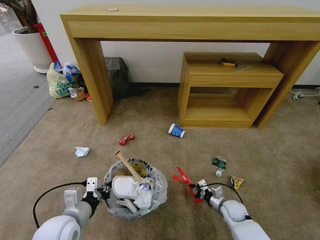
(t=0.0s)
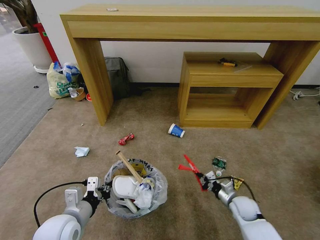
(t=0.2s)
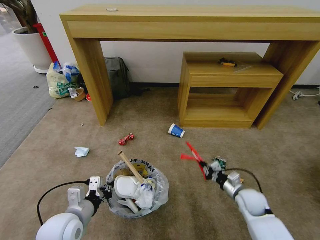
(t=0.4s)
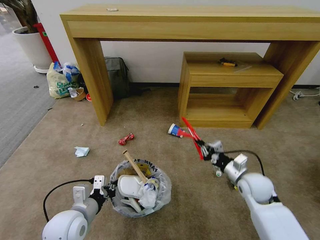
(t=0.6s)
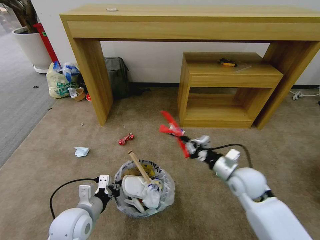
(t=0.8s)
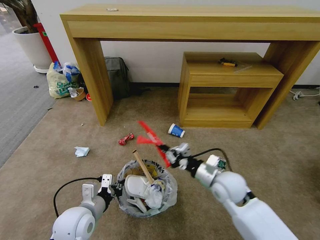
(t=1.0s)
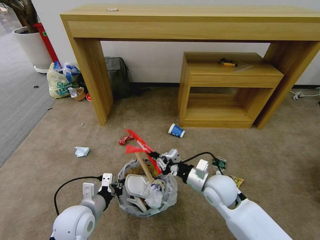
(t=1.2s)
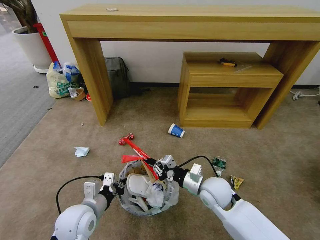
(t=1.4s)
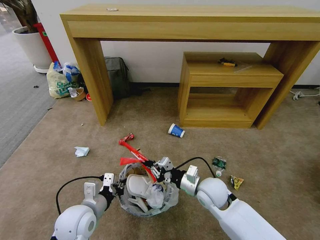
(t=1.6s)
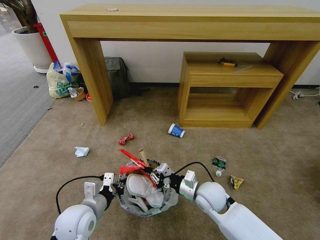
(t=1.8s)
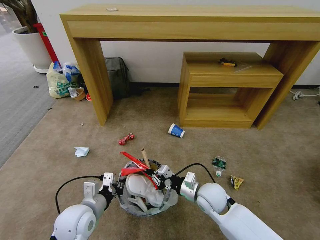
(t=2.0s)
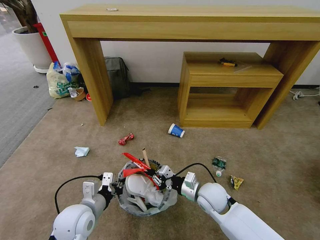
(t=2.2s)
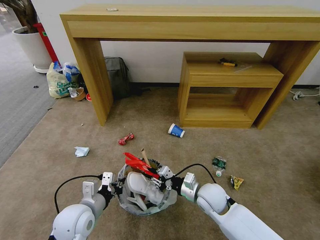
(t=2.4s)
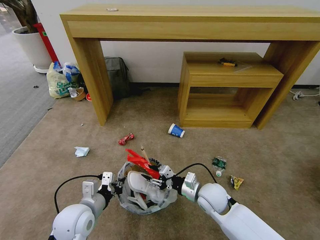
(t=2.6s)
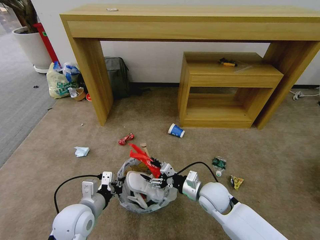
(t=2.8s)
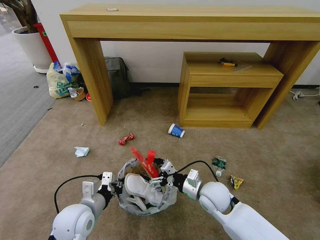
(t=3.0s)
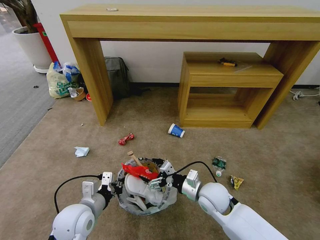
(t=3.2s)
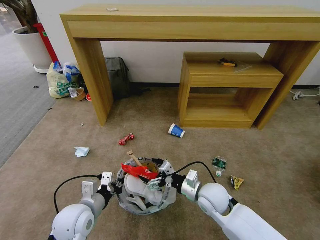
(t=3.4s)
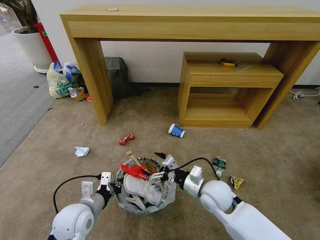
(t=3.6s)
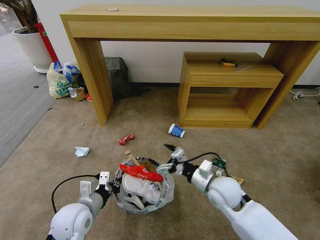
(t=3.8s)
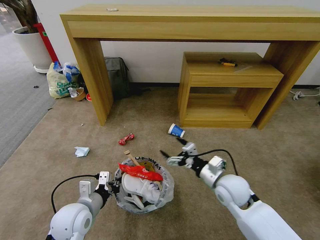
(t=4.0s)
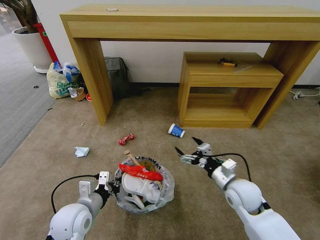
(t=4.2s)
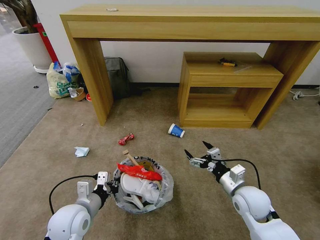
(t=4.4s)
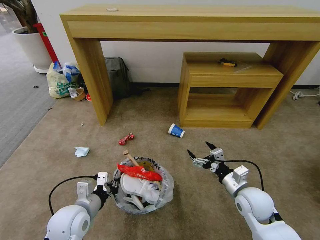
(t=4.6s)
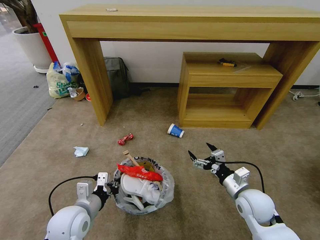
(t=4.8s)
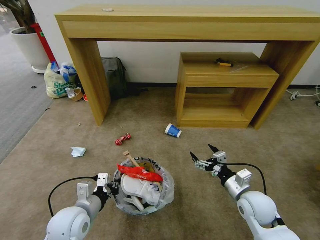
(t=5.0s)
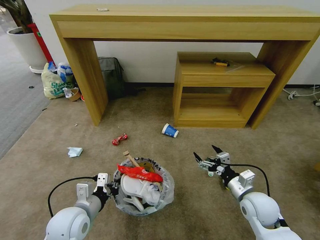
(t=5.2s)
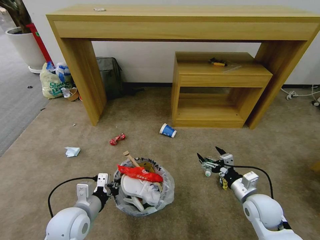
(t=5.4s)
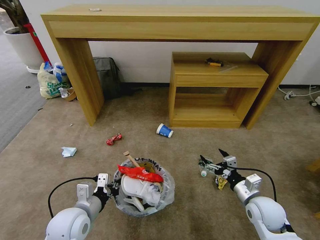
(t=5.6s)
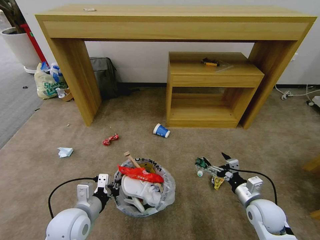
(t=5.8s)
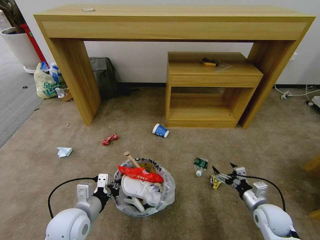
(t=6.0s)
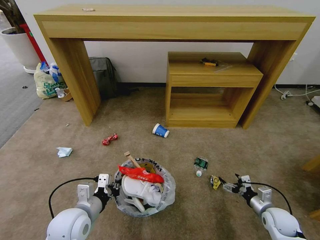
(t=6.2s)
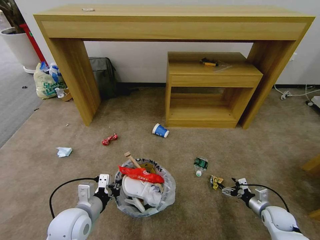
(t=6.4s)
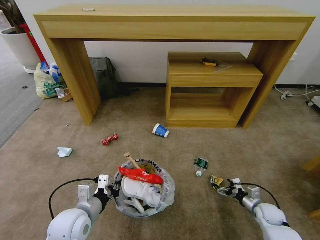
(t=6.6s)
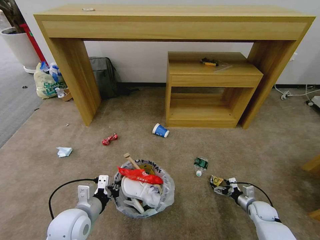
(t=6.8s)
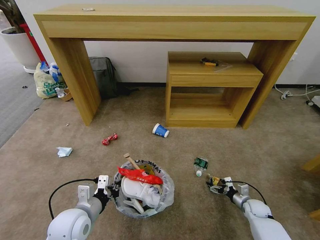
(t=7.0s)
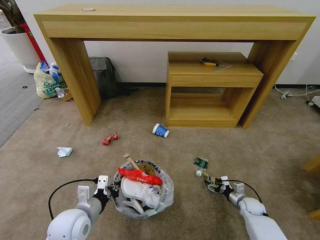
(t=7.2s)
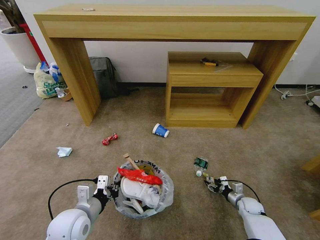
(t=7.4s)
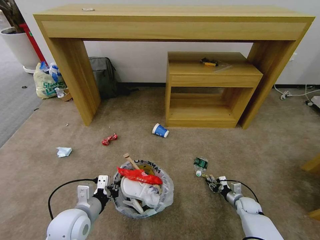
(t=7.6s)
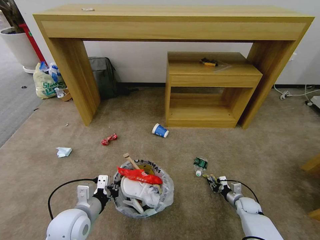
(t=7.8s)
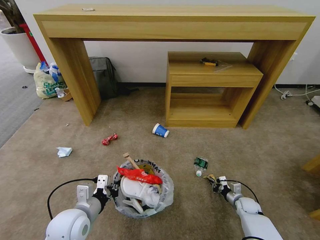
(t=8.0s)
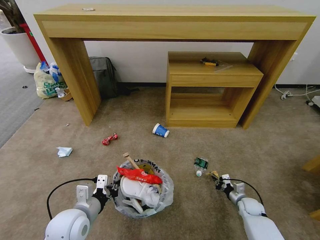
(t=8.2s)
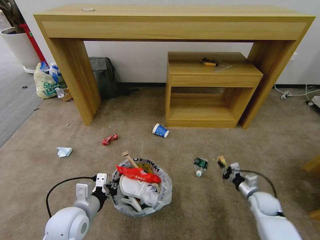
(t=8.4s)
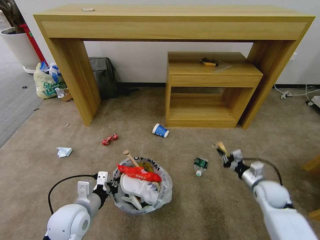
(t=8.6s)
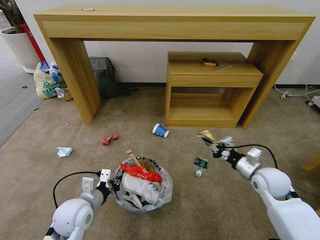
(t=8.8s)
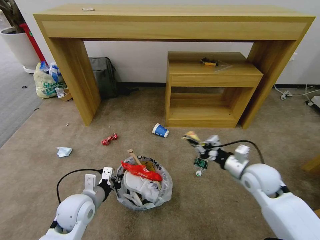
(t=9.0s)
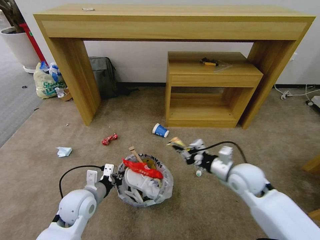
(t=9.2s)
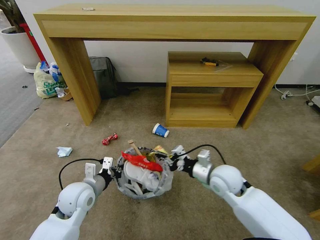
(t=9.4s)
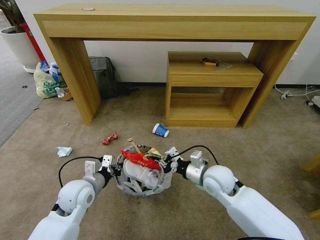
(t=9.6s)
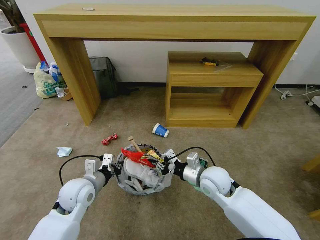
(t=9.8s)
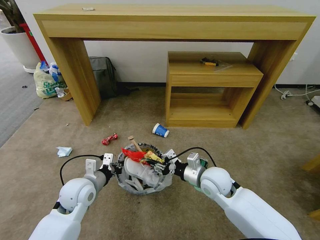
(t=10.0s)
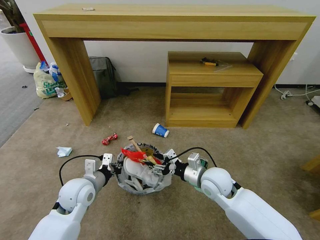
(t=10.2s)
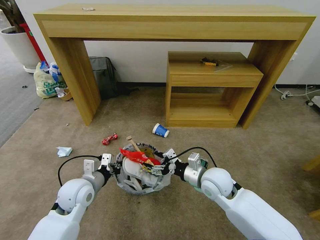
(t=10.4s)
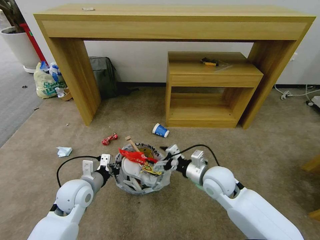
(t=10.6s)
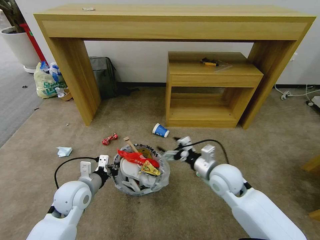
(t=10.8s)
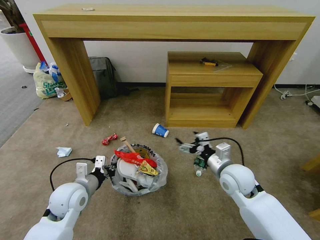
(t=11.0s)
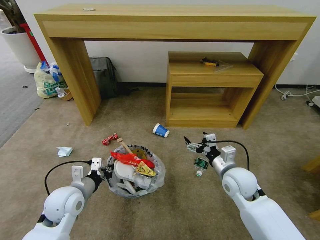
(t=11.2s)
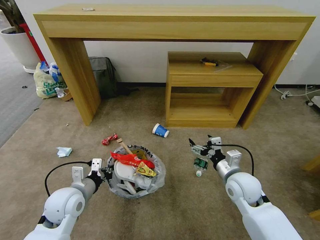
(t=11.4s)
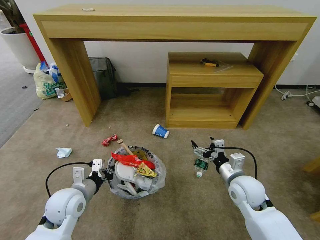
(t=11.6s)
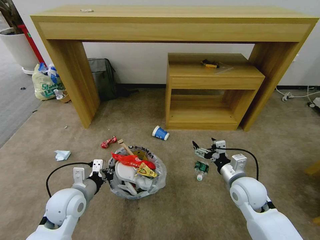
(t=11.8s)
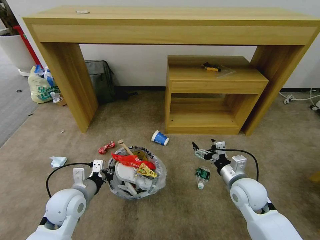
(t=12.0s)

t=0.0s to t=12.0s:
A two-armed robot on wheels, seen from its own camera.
Task of the whole recording: Pick up the trash bin and place the garbage on the floor into it.
t=0.0s to t=1.6s: The right gripper travels upward and to the left by approximately 25 cm.
t=1.6s to t=3.0s: The right gripper opens its fingers.
t=3.0s to t=4.4s: The right gripper heads to the right, covering some 10 cm.
t=4.4s to t=6.0s: The right gripper heads to the right and downward, covering about 15 cm.
t=6.0s to t=7.6s: The right gripper goes some 15 cm downward and forward, and closes its fingers.
t=7.6s to t=9.0s: The right gripper travels upward by about 30 cm, and closes up.
t=9.0s to t=10.4s: The right gripper goes approximately 15 cm to the left, and opens up.
t=10.4s to t=12.0s: The right gripper heads to the right, covering some 10 cm.

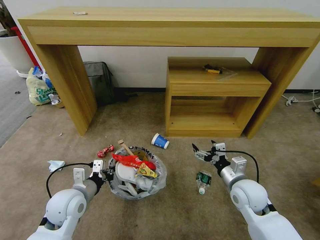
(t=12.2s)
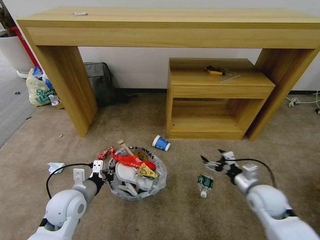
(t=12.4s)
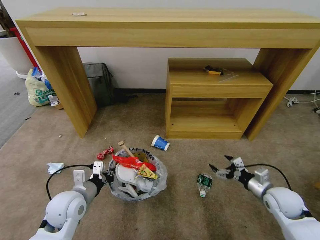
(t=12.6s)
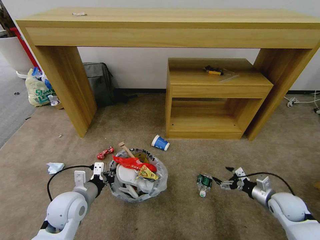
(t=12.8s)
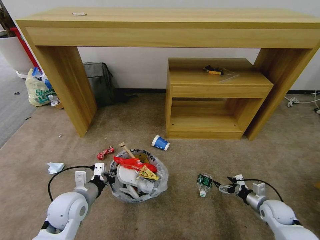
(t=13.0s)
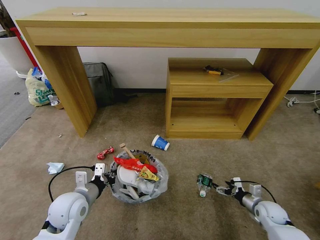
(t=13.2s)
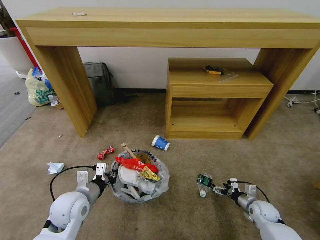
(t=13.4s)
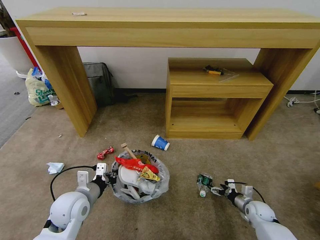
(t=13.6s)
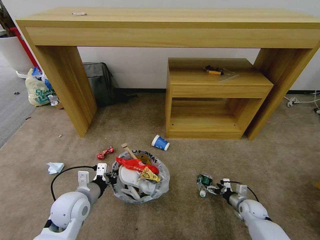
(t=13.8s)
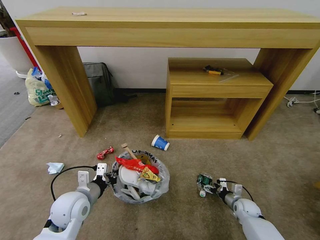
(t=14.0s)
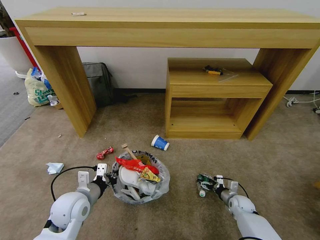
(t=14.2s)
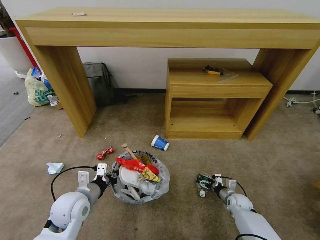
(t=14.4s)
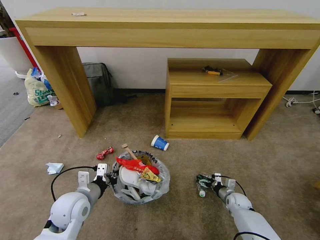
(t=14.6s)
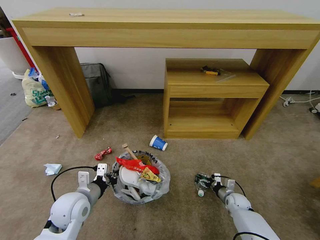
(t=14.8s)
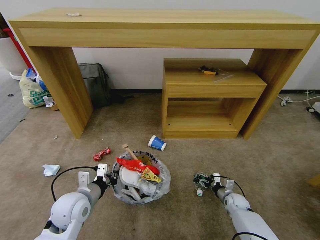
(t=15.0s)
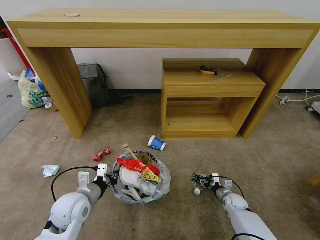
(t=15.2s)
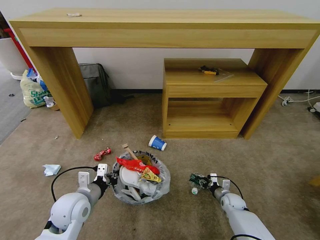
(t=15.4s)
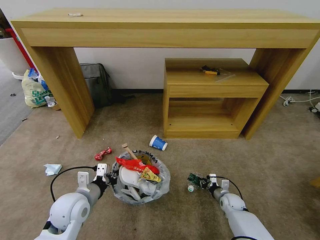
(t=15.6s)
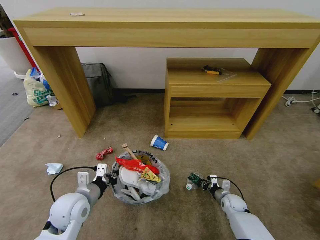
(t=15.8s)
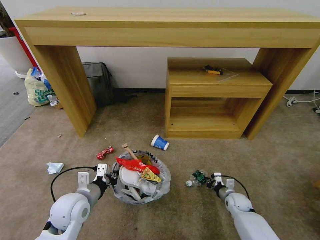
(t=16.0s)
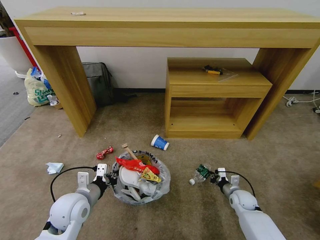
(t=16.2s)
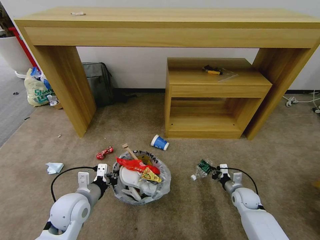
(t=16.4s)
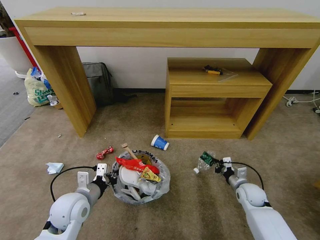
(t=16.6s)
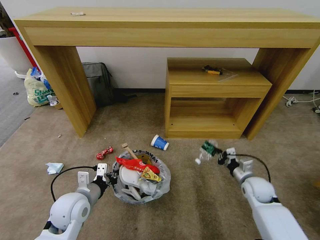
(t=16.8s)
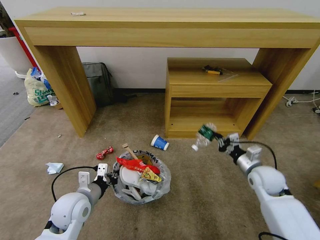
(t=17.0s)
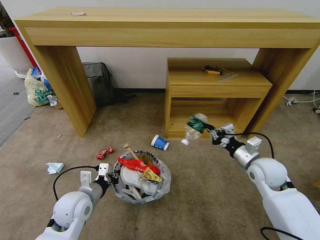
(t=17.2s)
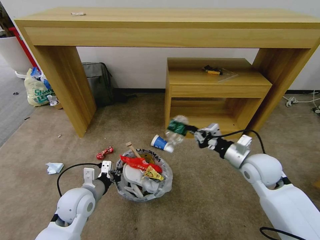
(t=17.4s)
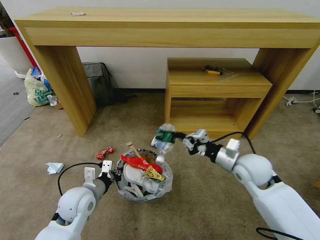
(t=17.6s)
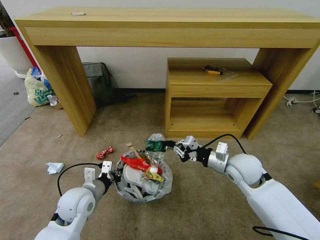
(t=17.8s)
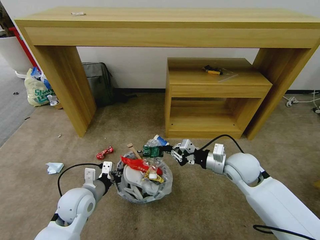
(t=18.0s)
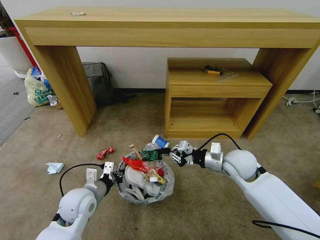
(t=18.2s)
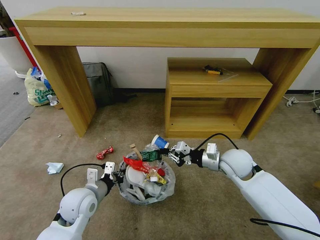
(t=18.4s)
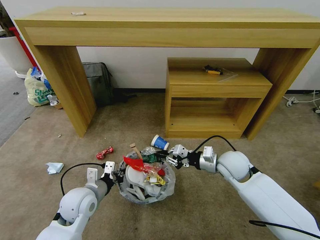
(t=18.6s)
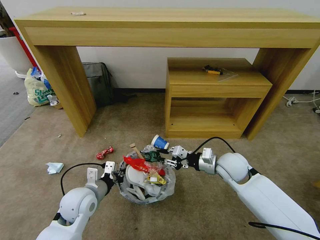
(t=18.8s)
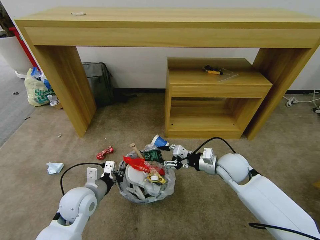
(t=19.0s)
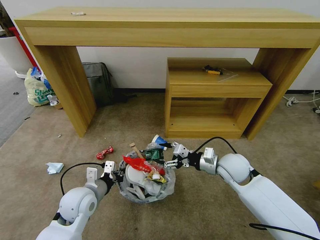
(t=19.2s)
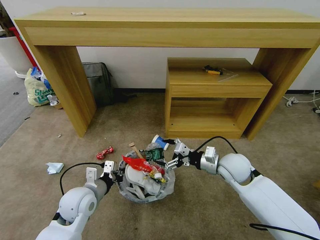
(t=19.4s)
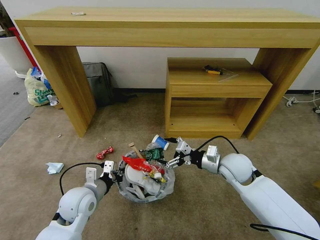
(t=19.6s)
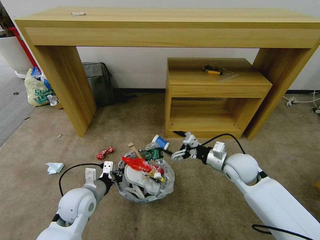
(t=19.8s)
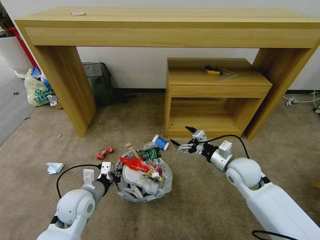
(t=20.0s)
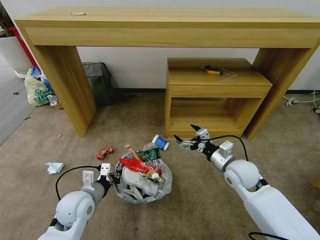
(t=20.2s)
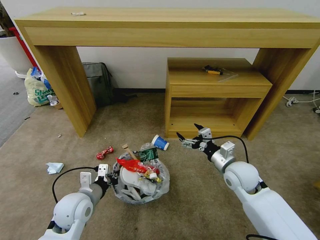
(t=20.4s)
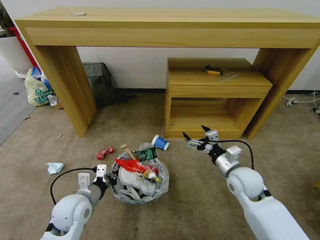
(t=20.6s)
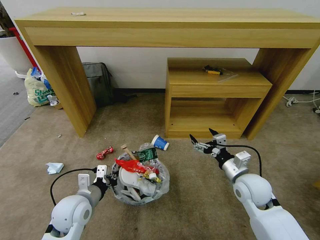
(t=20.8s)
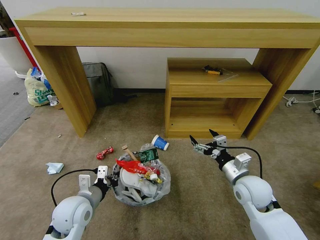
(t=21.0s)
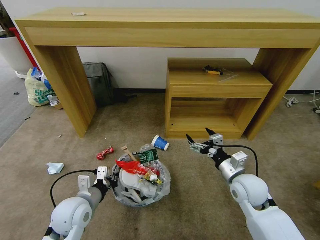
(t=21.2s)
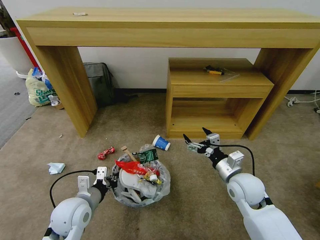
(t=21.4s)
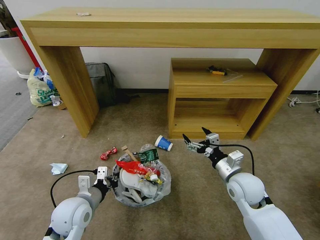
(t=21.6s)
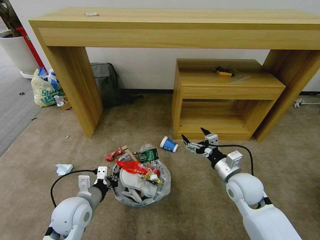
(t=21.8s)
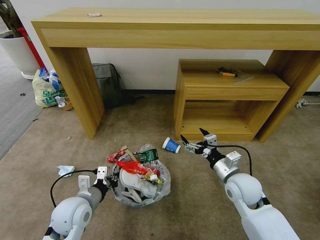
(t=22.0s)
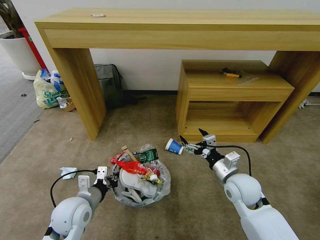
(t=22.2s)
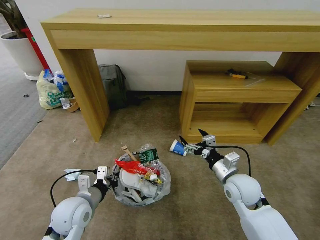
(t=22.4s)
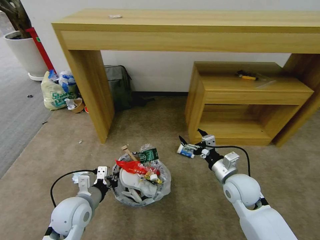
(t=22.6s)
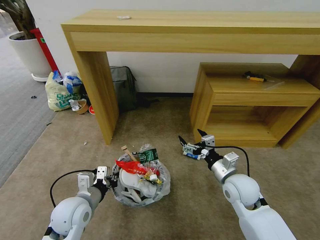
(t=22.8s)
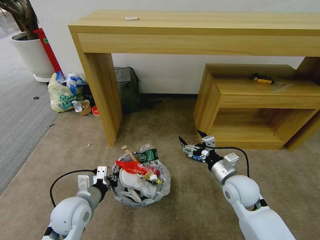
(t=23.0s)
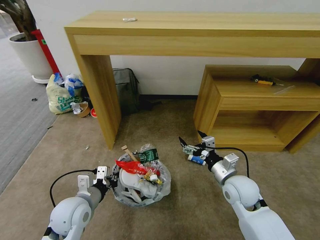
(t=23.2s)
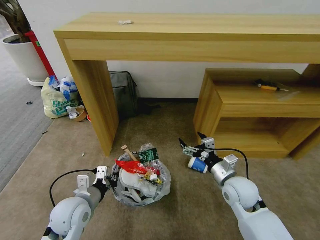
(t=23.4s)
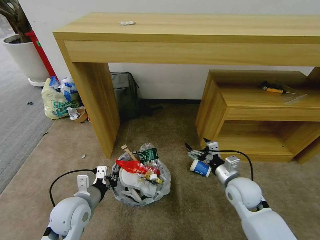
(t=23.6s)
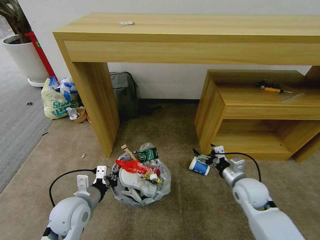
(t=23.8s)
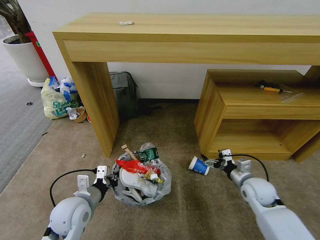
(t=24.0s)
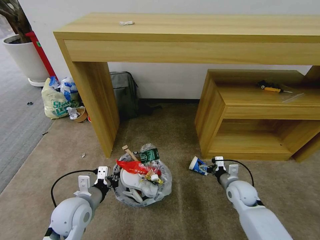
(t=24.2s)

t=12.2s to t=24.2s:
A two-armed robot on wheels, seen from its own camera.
Task of the whole recording: Pick up the trash bin and place the garbage on the floor into it.
t=12.2s to t=13.8s: The right gripper moves downward and to the right, approximately 25 cm.
t=13.8s to t=15.2s: The right gripper travels to the left by some 5 cm, and closes up.
t=15.2s to t=16.6s: The right gripper travels upward by approximately 10 cm, and closes.
t=16.6s to t=18.2s: The right gripper goes some 25 cm upward and to the left.
t=18.2s to t=19.8s: The right gripper opens its fingers.
t=19.8s to t=21.2s: The right gripper moves backward, approximately 5 cm.
t=22.6s to t=24.2s: The right gripper moves downward and to the right, about 10 cm.
